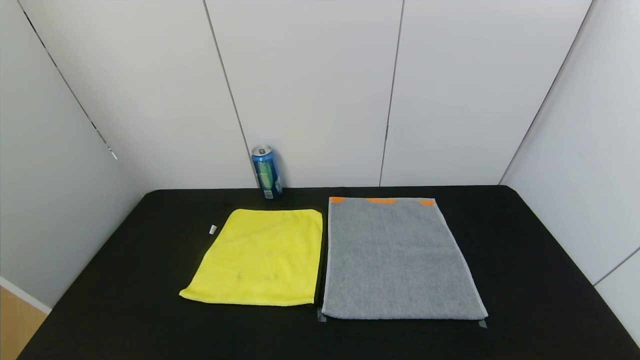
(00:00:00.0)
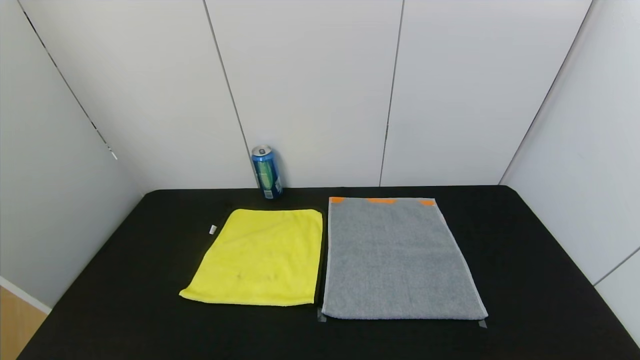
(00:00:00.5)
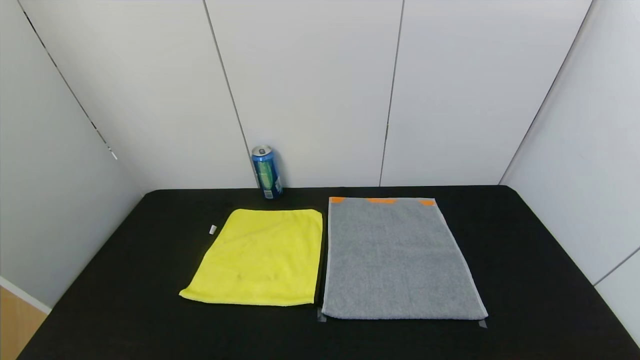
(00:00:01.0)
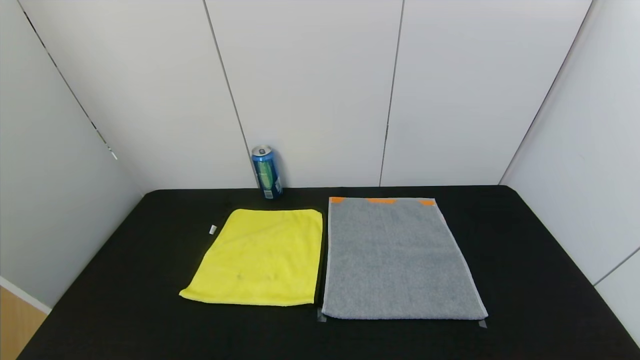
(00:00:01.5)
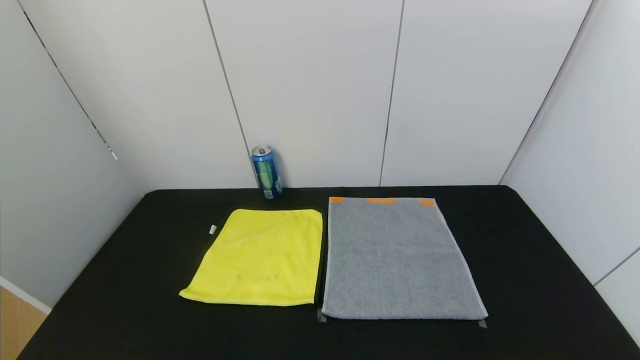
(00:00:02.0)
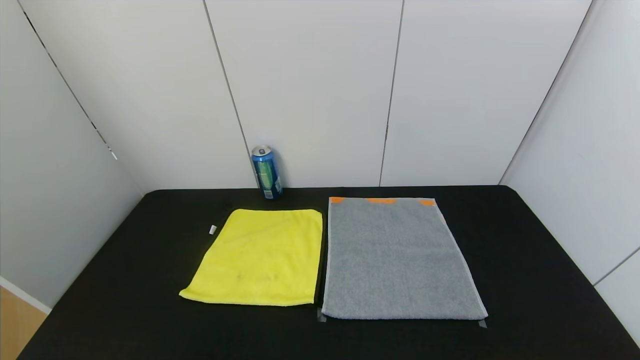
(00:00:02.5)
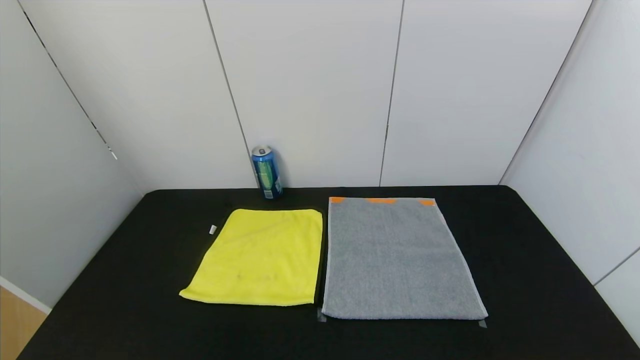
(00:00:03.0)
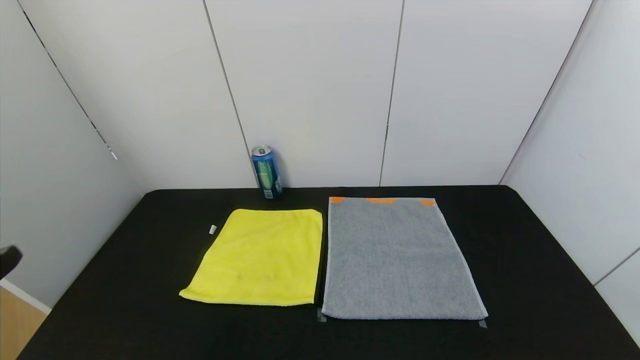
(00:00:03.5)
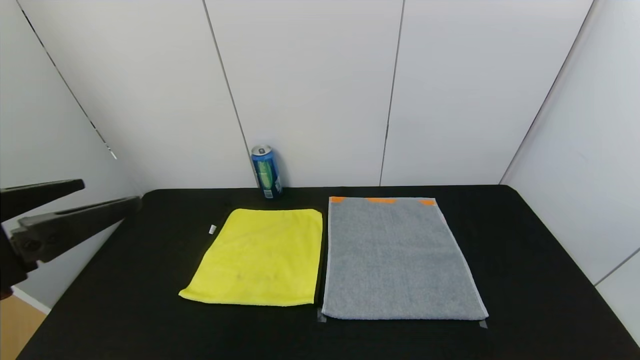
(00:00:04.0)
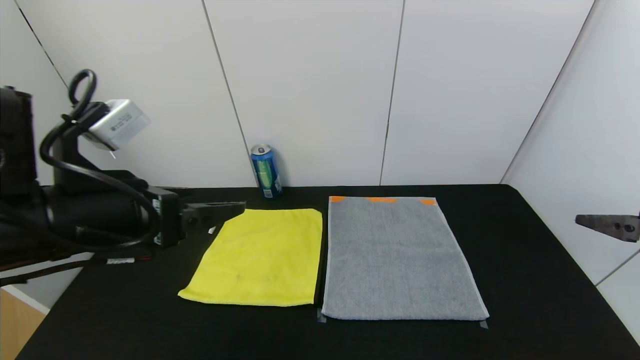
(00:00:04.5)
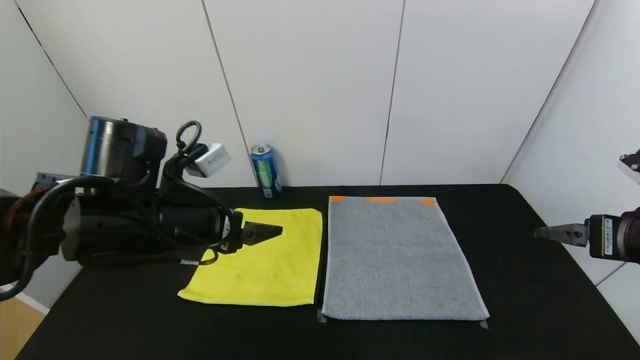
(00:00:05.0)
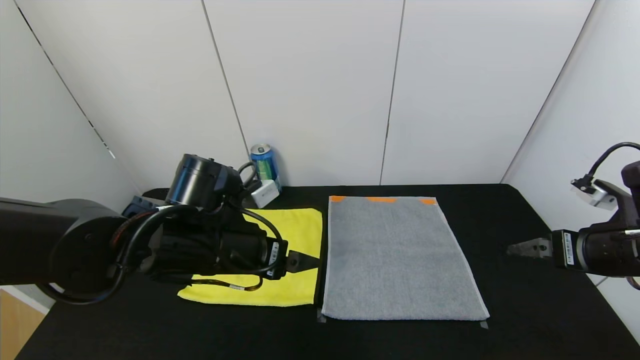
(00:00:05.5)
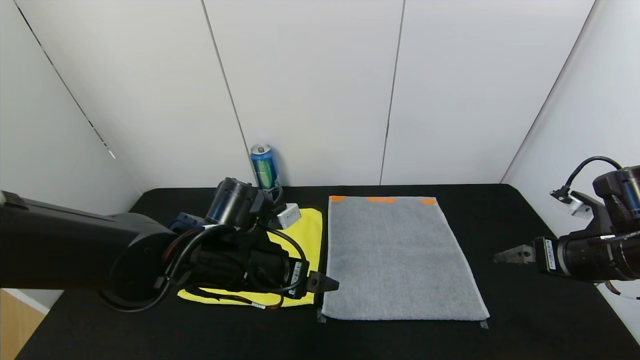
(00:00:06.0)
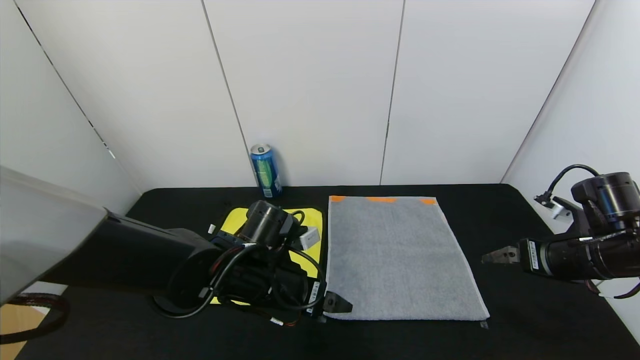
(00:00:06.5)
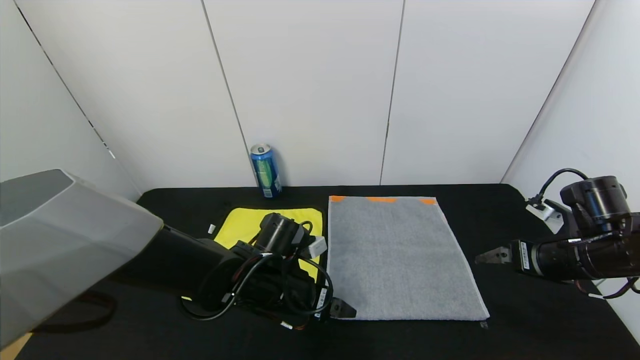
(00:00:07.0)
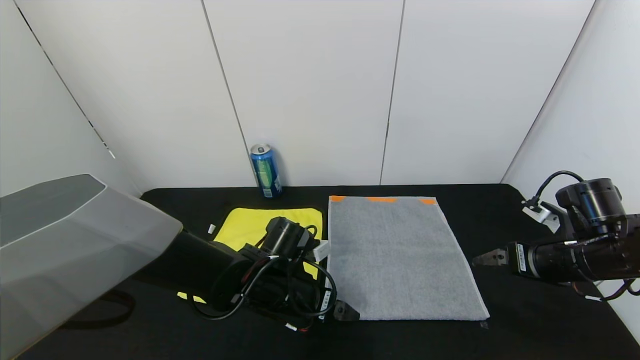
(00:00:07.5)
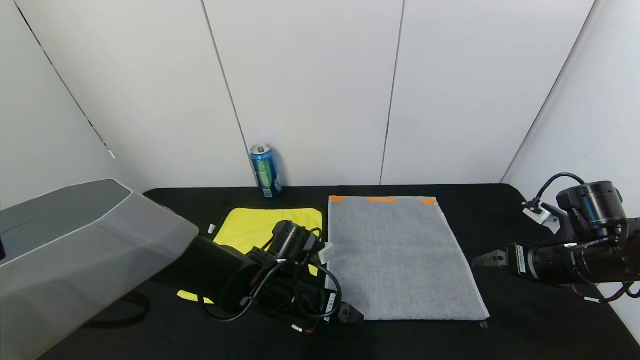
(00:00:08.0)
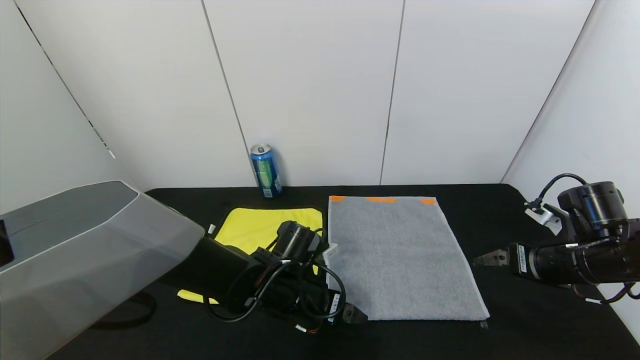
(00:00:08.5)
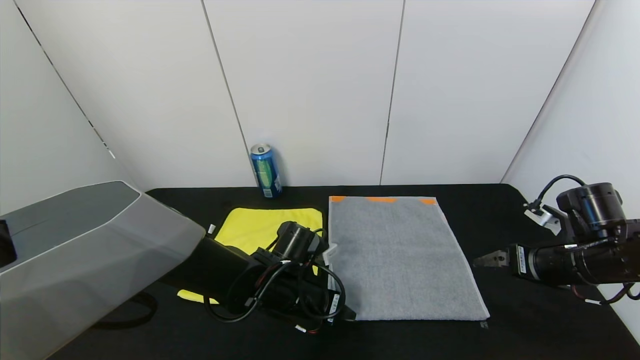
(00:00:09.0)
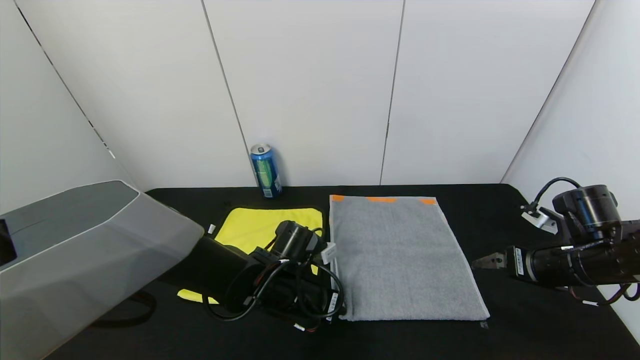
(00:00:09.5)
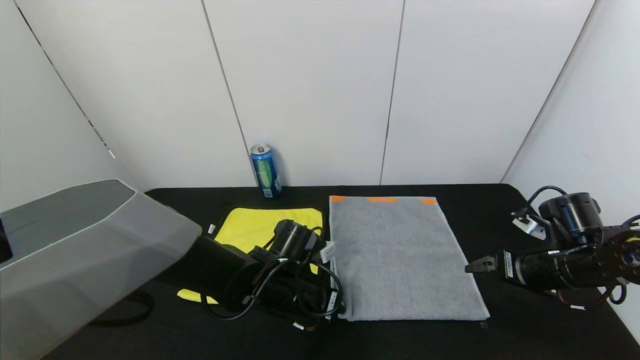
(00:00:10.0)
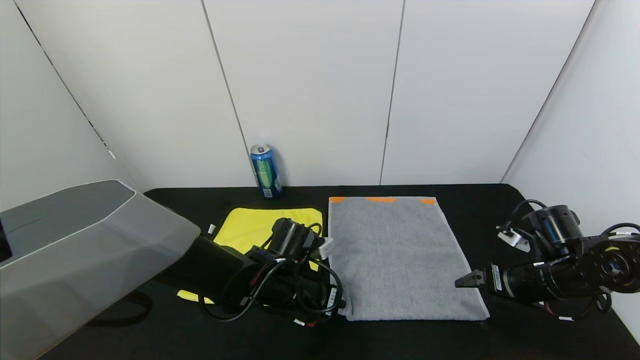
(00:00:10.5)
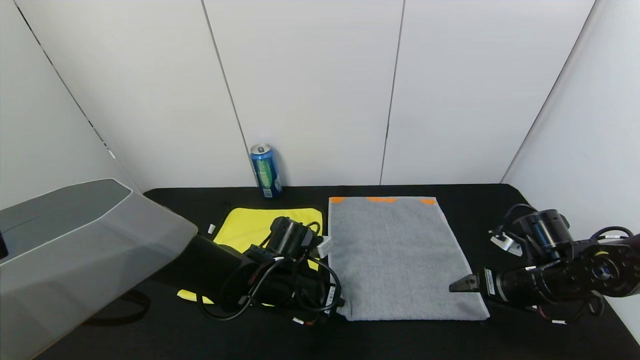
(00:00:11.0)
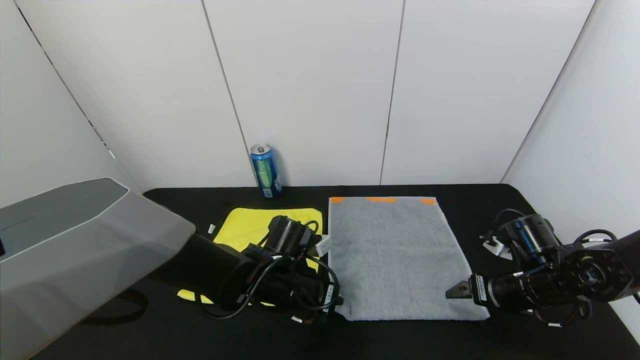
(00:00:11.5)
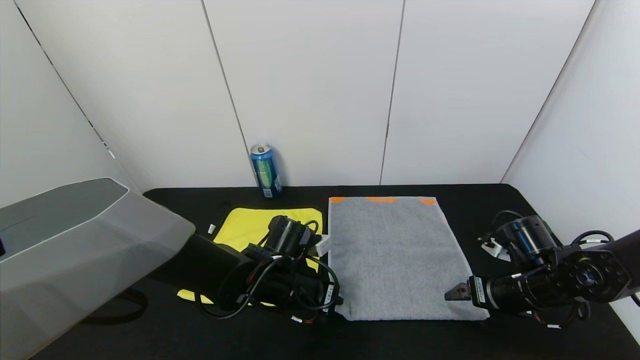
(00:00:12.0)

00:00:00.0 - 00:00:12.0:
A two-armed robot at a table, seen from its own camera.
Task of the whole recording: Use the gripper to fold the yellow towel and grey towel in half twice,then put the yellow towel on the grey towel.
00:00:00.0 - 00:00:02.0: Both grippers stay put.
00:00:02.0 - 00:00:04.0: The left gripper heads upward and forward, covering approximately 25 cm.
00:00:04.0 - 00:00:06.0: The left gripper moves forward, to the right and downward, some 25 cm, while the right gripper travels forward and downward by roughly 20 cm.
00:00:06.0 - 00:00:08.0: The left gripper is displaced downward by approximately 10 cm.
00:00:08.0 - 00:00:10.0: The left gripper closes up.
00:00:10.0 - 00:00:12.0: The right gripper shifts by about 5 cm.

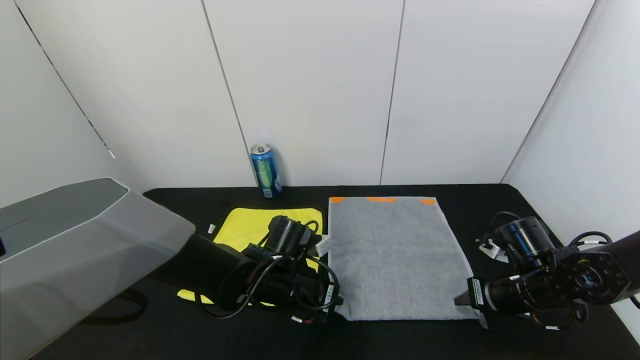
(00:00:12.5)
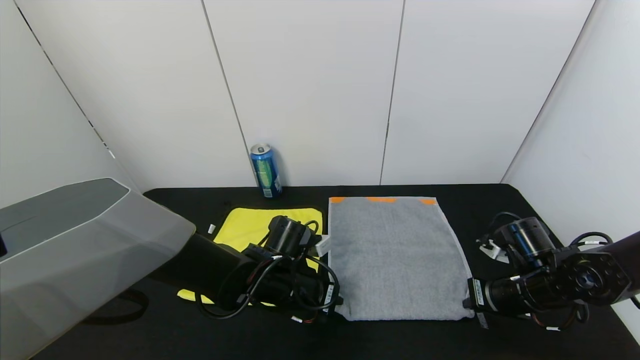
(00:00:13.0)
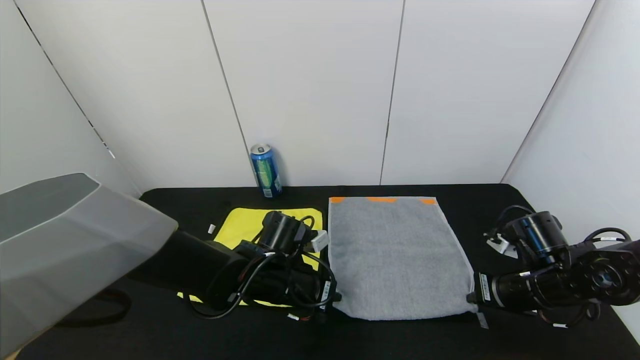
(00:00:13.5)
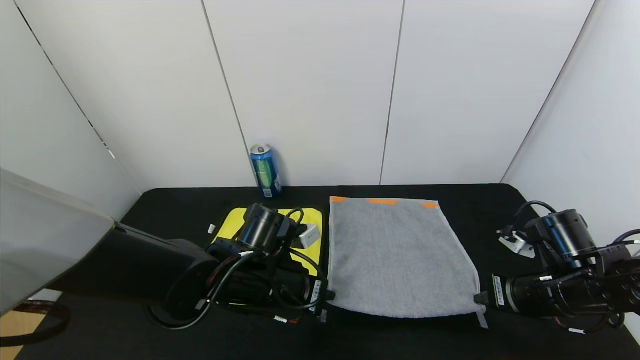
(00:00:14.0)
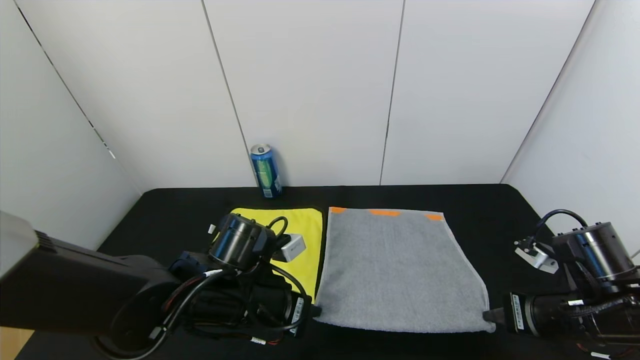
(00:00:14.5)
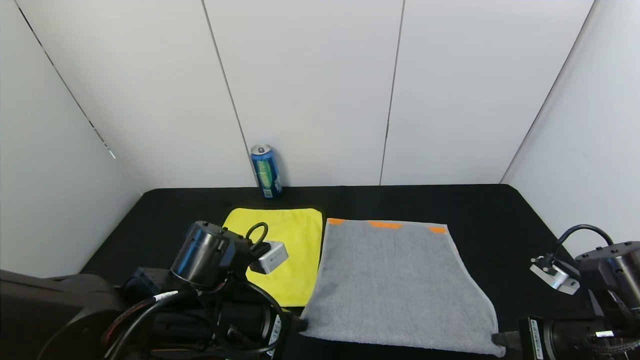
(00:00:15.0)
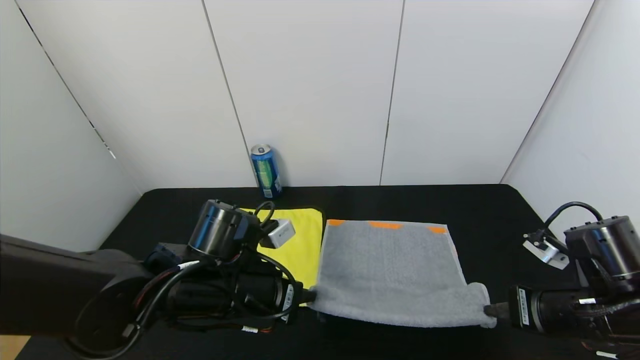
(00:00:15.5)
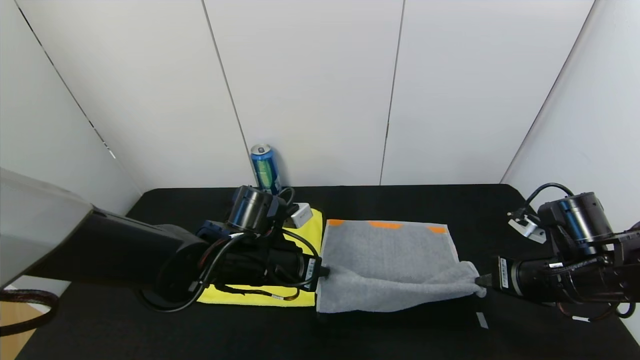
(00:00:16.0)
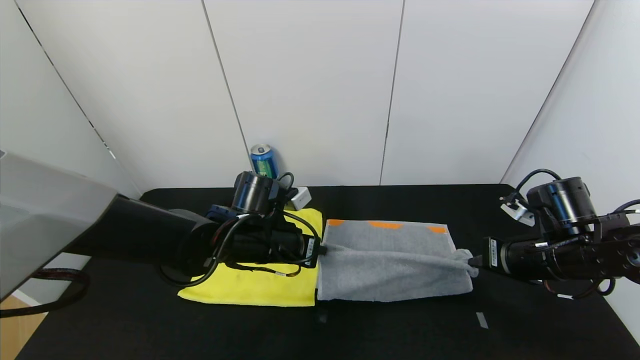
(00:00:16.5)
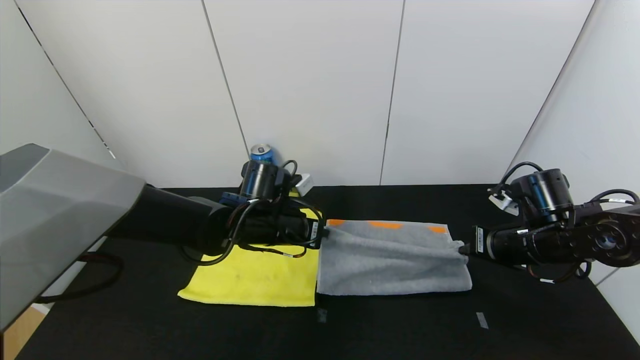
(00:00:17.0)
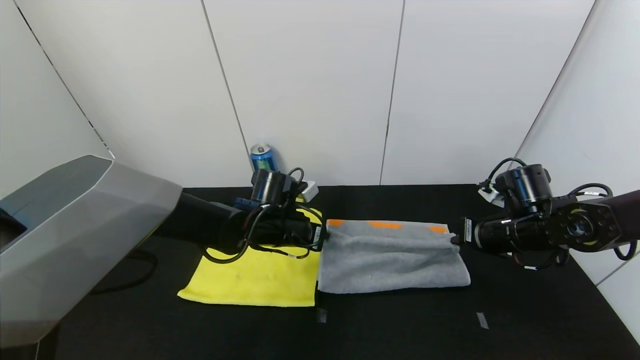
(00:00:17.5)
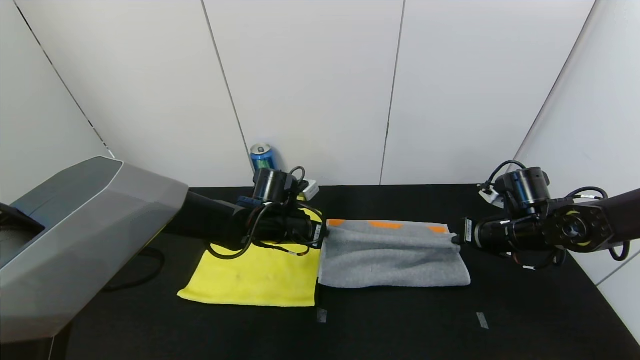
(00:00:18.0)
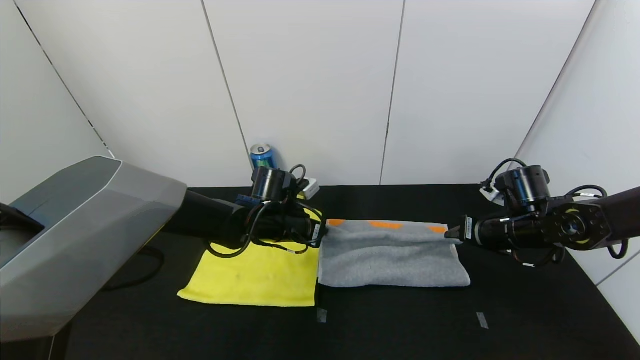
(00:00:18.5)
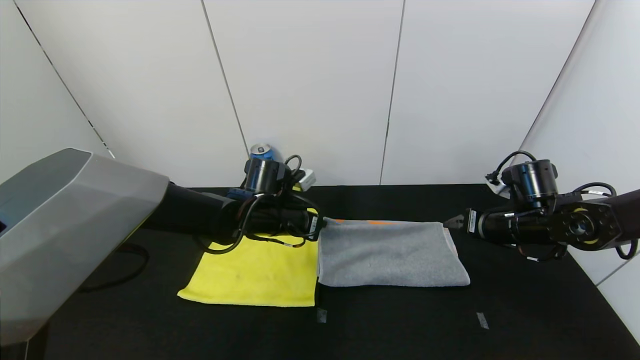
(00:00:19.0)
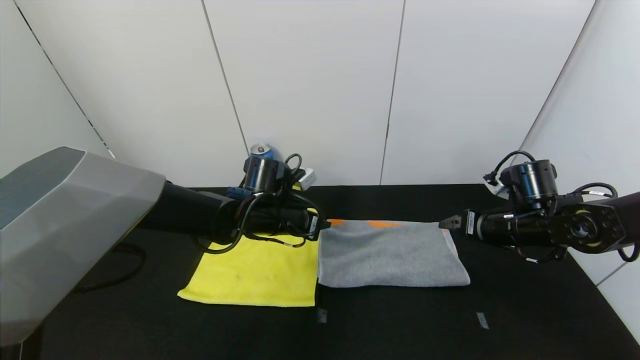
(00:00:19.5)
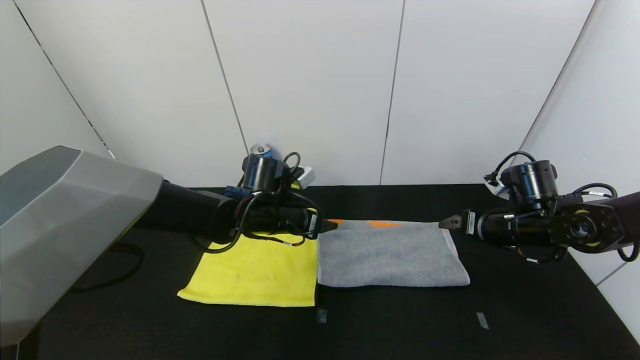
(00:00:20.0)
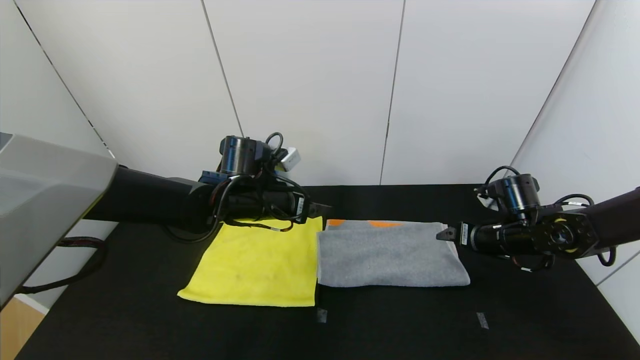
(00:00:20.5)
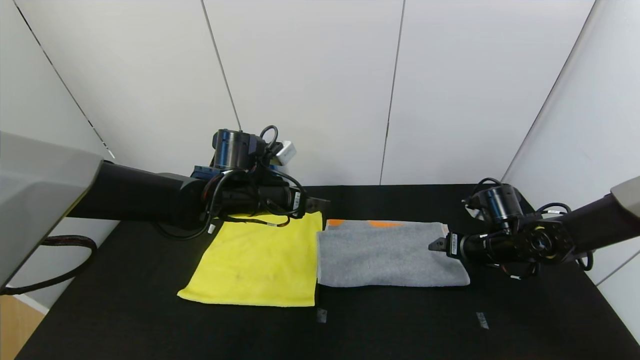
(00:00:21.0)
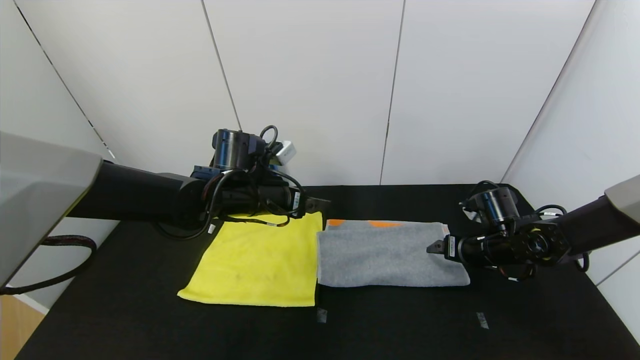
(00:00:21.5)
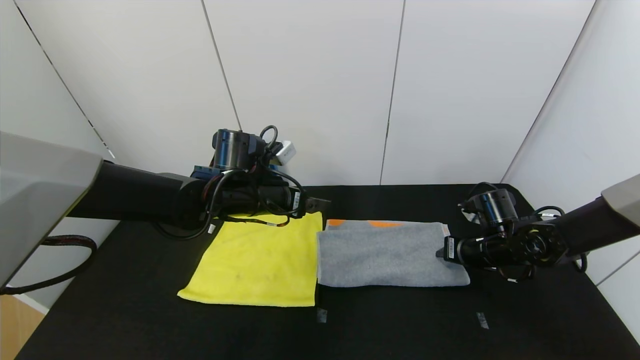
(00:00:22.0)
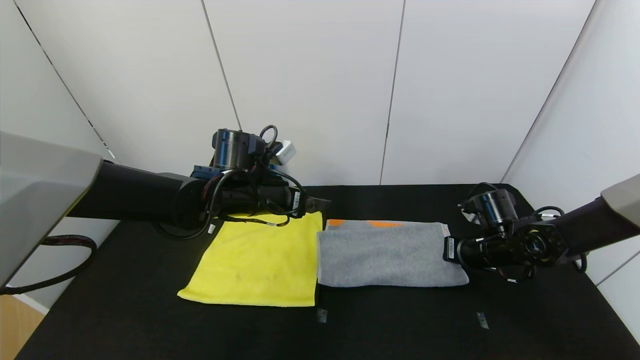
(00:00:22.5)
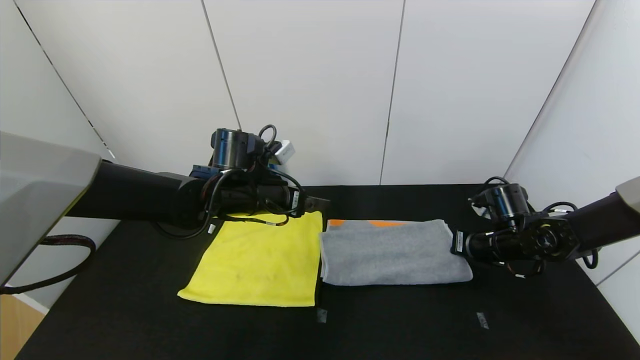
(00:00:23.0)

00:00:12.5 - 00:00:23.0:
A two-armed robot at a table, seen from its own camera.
Task of the whole recording: Use the gripper to fold the yellow towel and grey towel in half twice,then put the yellow towel on the grey towel.
Step, 00:00:12.5 - 00:00:20.0: Fold the gray towel upwards with the left gripper.
00:00:12.5 - 00:00:14.5: The left gripper moves backward, roughly 5 cm, while the right gripper moves backward and upward, roughly 10 cm, and closes up.
00:00:14.5 - 00:00:16.5: The two grippers go about 10 cm forward.
00:00:16.5 - 00:00:19.0: Both grippers travel together forward, roughly 5 cm. The right gripper opens up.
00:00:19.0 - 00:00:21.0: The right gripper goes approximately 5 cm downward; the left gripper shifts by some 5 cm, and opens.
00:00:21.0 - 00:00:23.0: The right gripper closes up.
